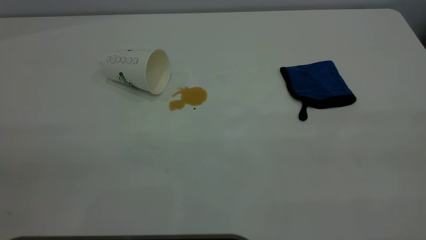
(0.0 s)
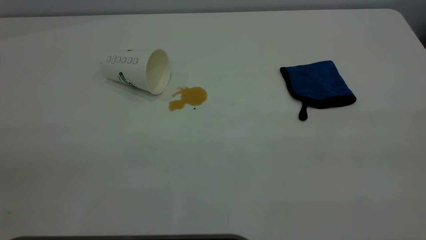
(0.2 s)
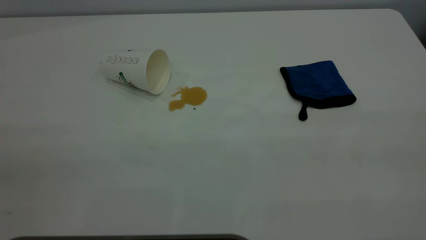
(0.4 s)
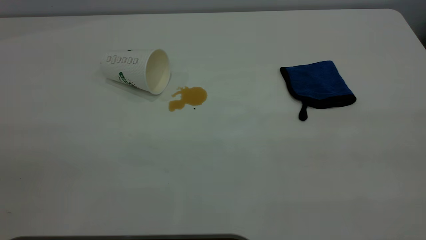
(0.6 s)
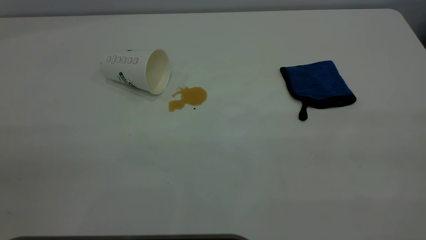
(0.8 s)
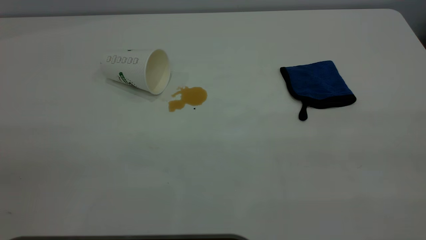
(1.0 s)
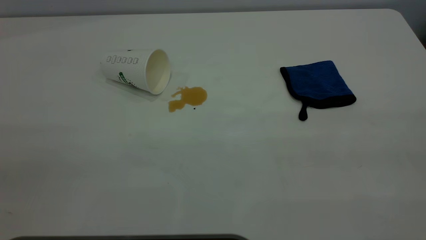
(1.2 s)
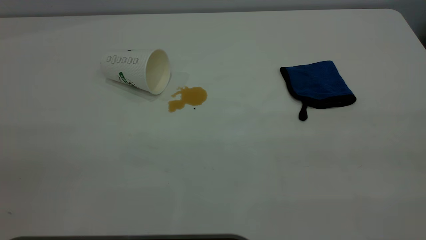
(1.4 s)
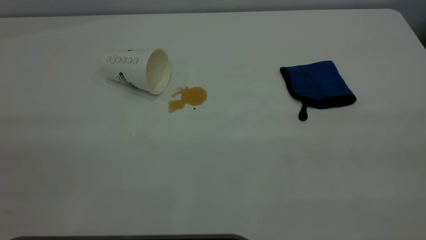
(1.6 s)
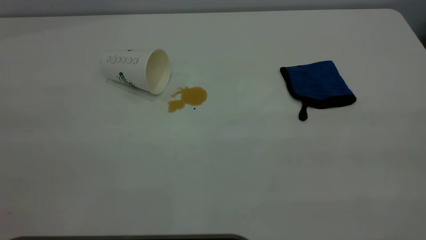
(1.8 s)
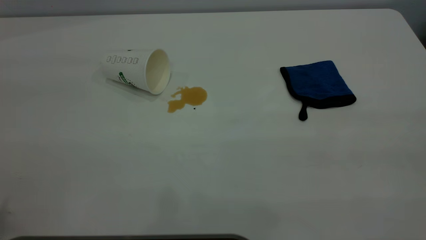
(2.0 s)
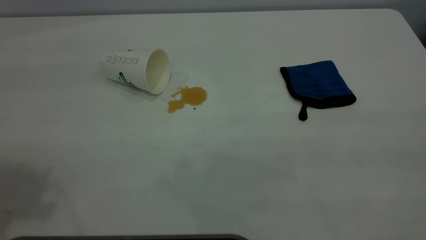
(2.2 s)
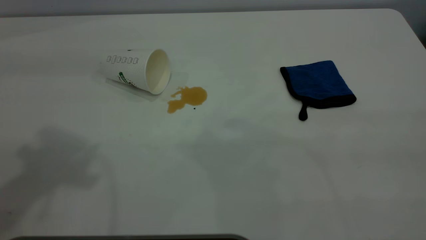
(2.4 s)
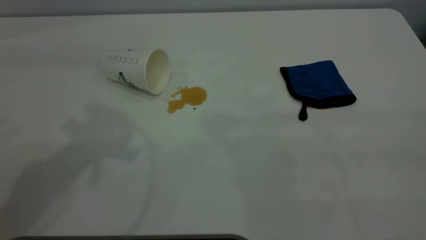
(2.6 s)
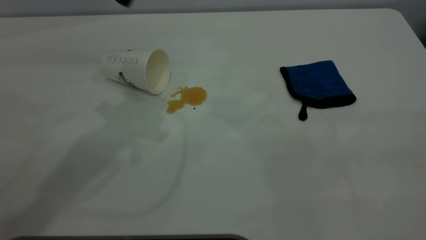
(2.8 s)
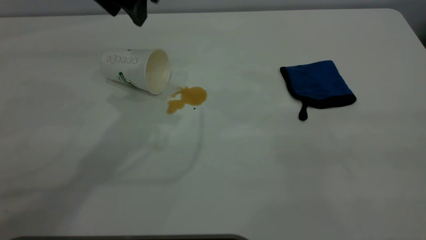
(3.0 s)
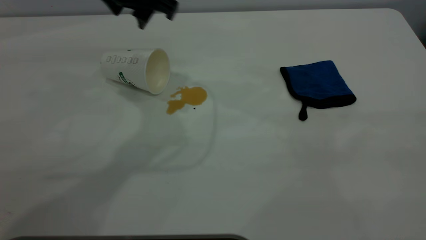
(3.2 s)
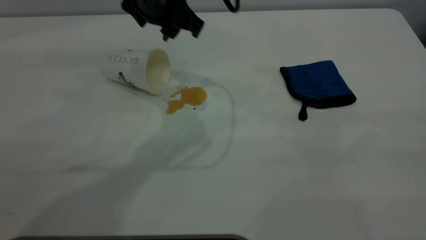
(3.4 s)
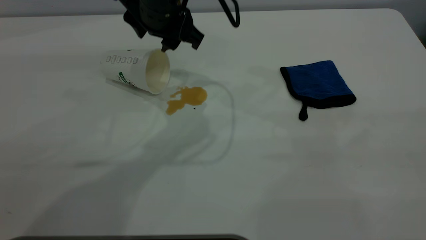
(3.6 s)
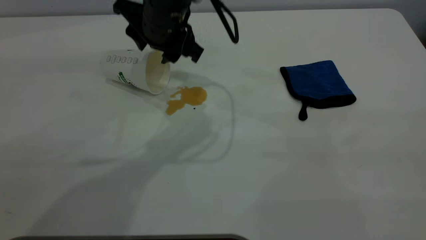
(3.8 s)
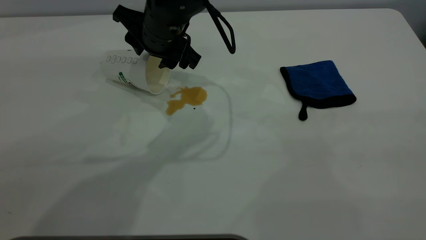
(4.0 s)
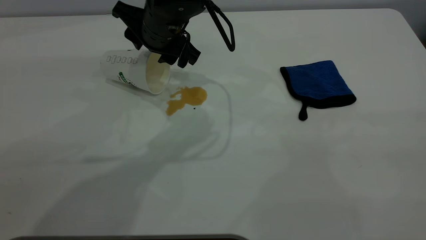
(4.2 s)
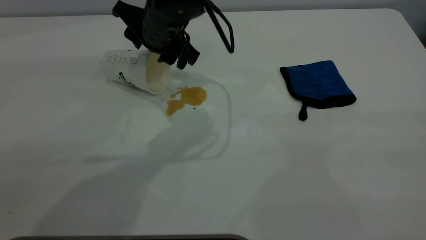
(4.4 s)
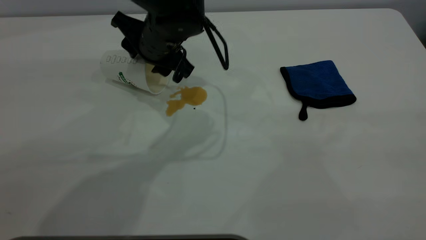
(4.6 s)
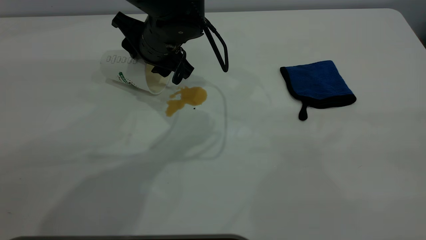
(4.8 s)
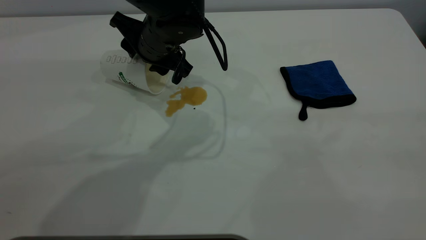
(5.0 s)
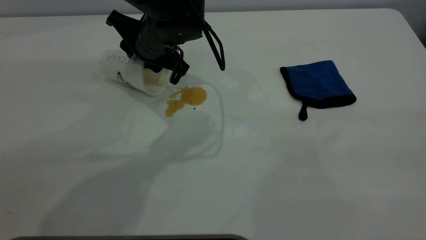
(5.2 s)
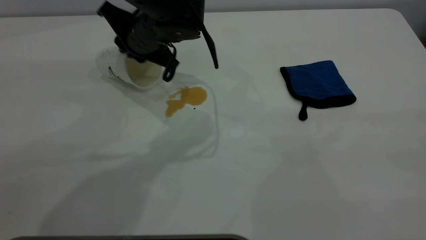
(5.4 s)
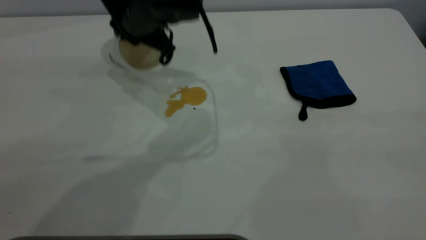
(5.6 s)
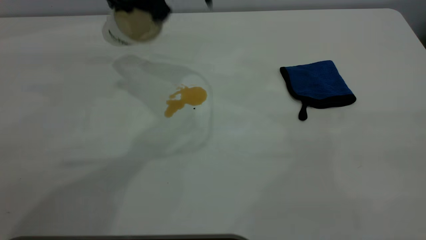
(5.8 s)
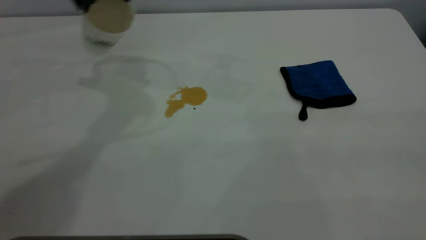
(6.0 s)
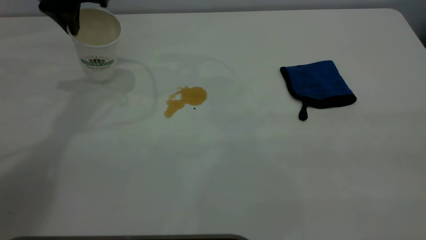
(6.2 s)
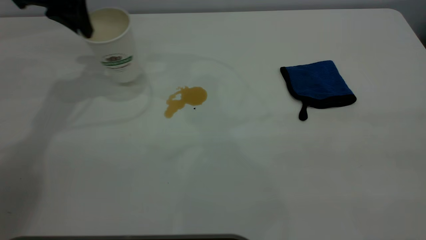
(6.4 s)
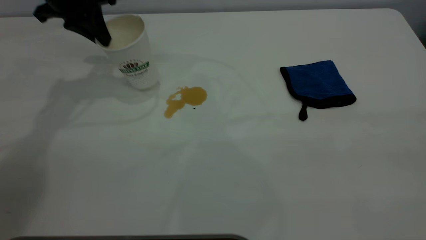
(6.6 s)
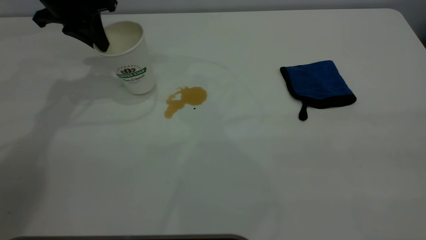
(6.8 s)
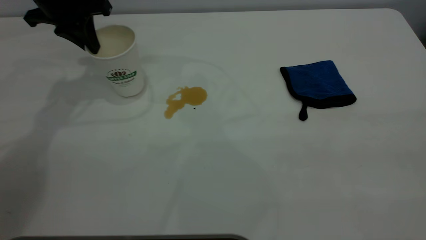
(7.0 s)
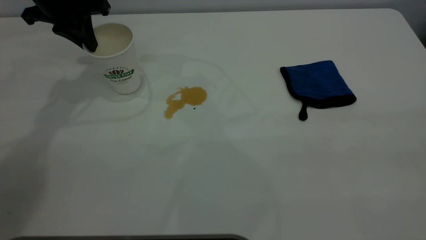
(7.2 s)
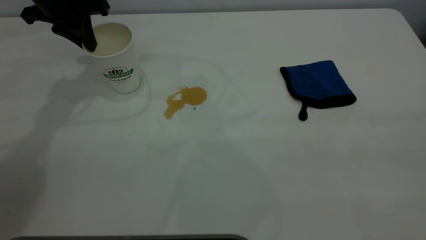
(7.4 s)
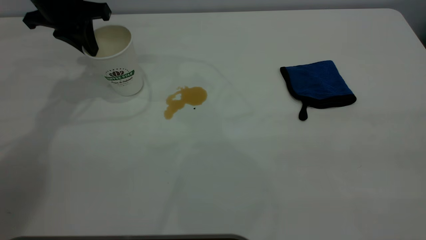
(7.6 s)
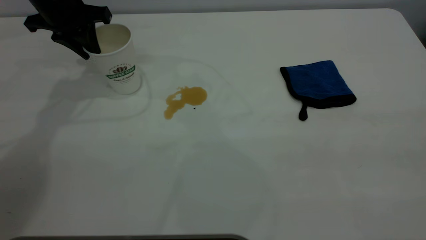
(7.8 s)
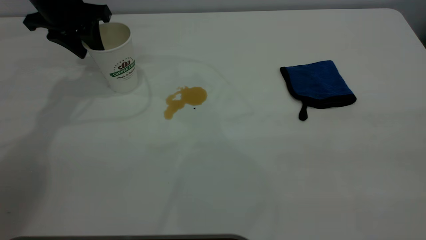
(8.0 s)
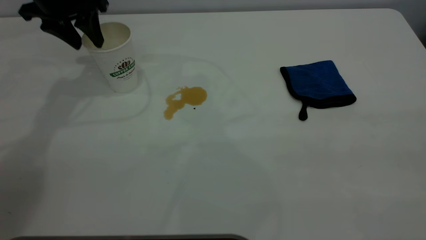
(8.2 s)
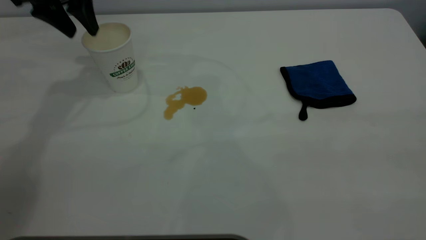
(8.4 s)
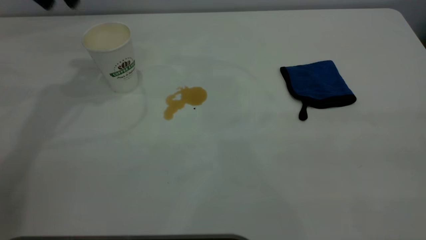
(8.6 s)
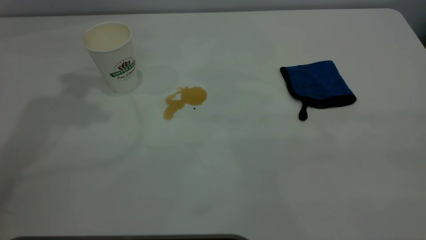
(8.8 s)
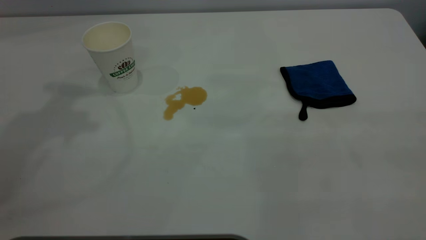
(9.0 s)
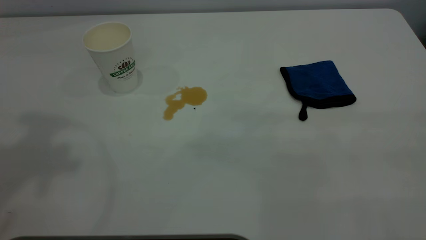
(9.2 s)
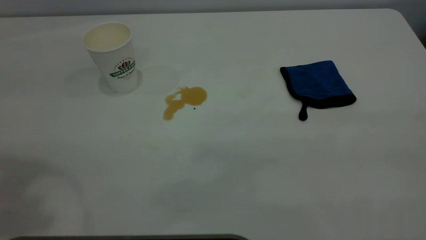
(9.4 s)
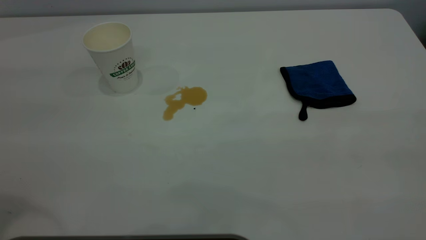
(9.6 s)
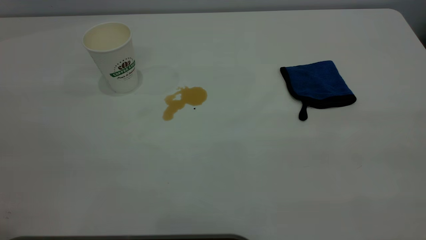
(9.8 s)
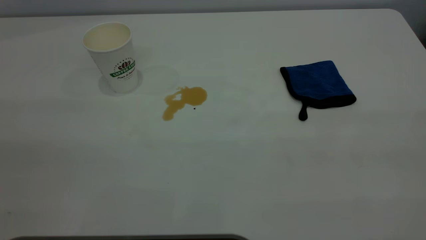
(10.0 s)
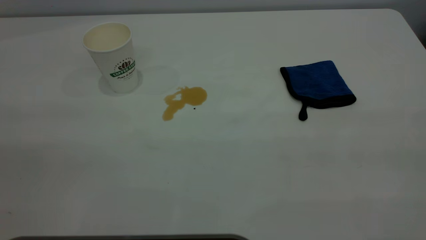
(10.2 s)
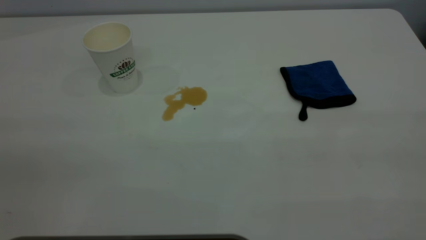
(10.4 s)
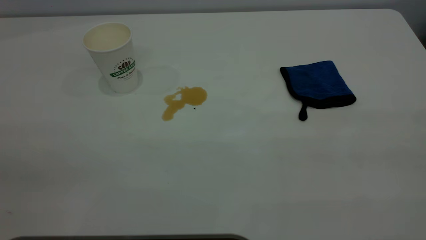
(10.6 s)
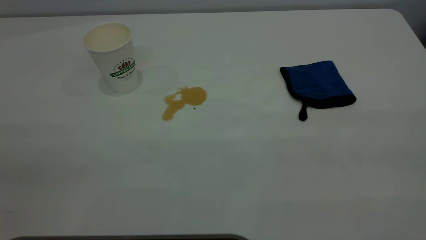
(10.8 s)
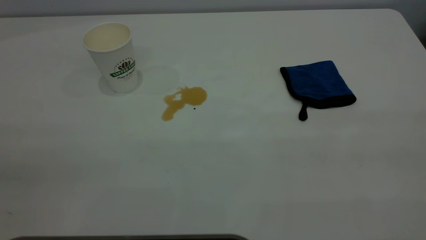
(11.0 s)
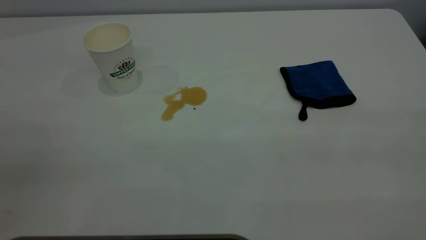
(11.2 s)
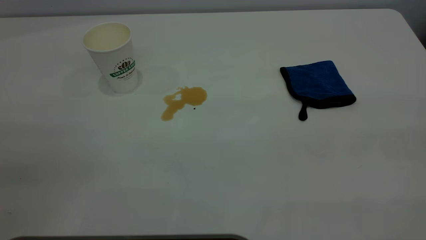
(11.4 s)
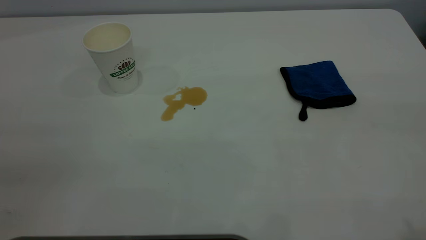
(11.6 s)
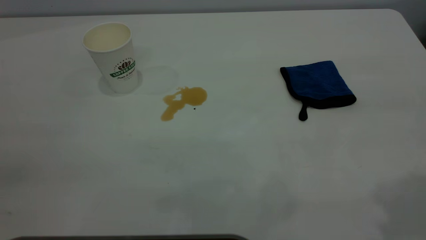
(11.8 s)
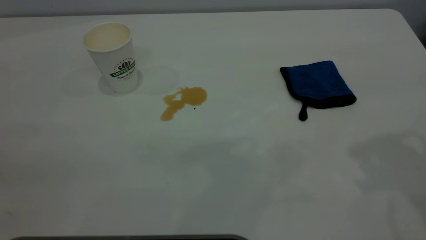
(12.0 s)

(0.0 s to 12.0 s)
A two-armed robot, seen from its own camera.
Task of the whole recording: the left gripper pick up the fallen cup and place it upright, the right gripper grasp the blue rag and wipe the tea stain on the table, the right gripper put the blue rag back in its original position.
Step, 0.0 s - 8.4 s: Stand the paper cup upright.
1.6 s - 3.0 s: The left gripper moves forward and to the right, approximately 40 cm.
3.0 s - 4.4 s: The left gripper shifts some 15 cm downward and to the right.
4.4 s - 6.0 s: The left gripper travels to the left and upward by approximately 15 cm, and closes.
6.0 s - 7.6 s: The left gripper goes approximately 5 cm to the left.
7.6 s - 9.0 s: The left gripper shifts roughly 30 cm upward and backward, and opens its fingers.

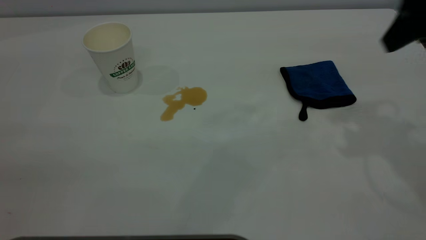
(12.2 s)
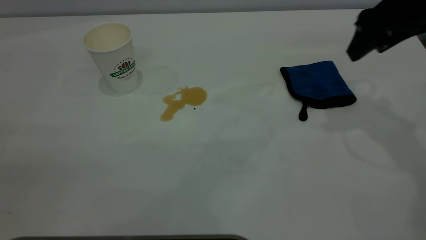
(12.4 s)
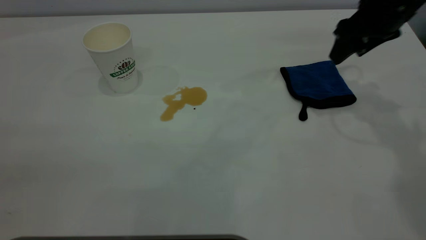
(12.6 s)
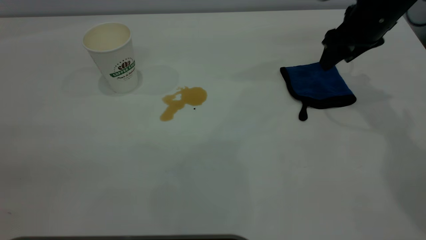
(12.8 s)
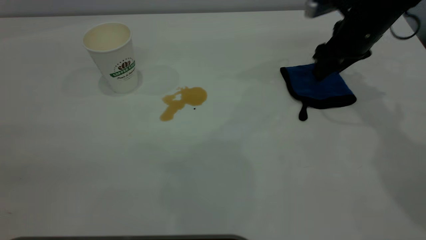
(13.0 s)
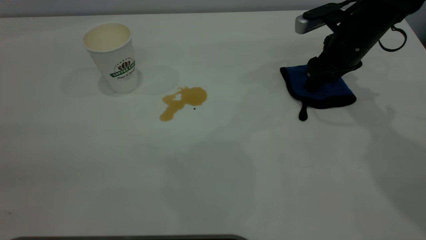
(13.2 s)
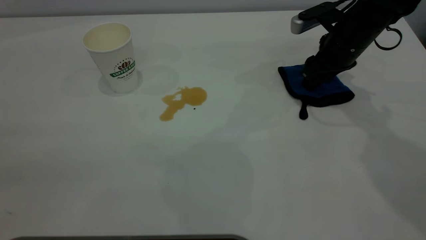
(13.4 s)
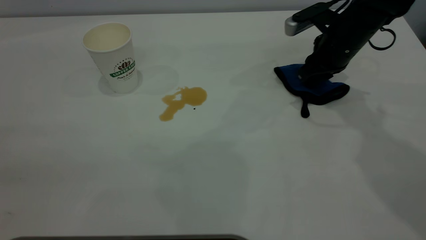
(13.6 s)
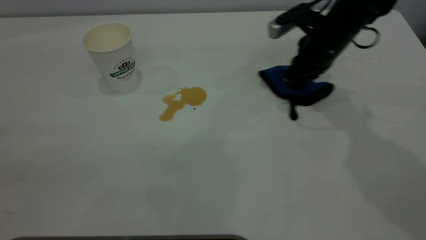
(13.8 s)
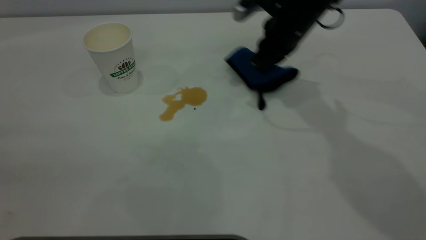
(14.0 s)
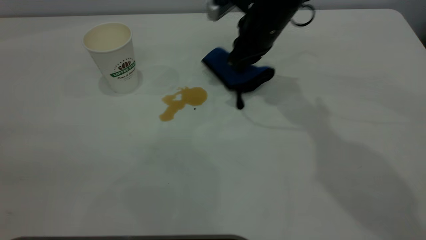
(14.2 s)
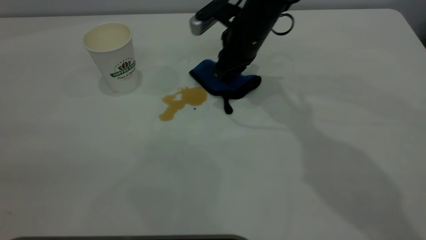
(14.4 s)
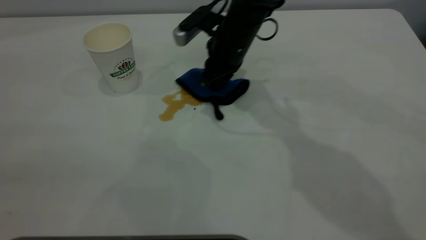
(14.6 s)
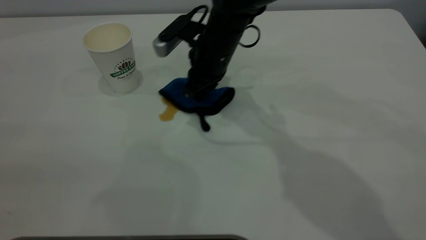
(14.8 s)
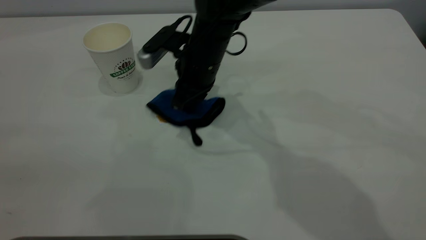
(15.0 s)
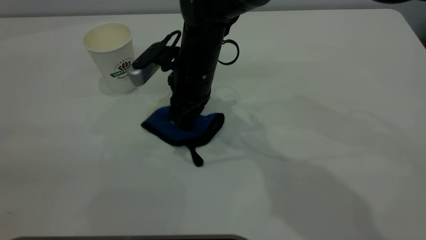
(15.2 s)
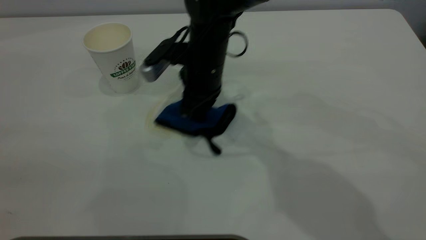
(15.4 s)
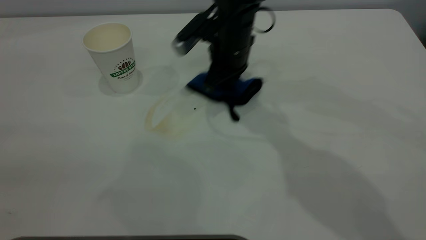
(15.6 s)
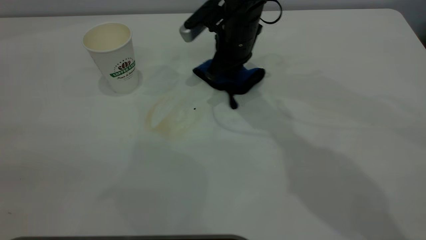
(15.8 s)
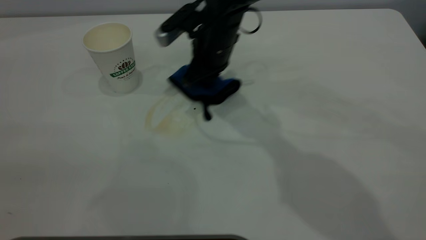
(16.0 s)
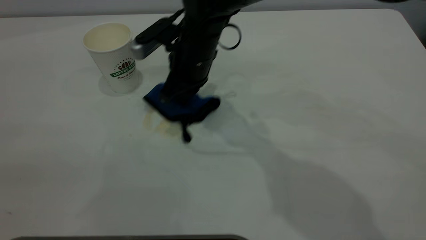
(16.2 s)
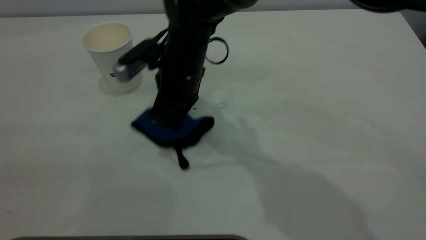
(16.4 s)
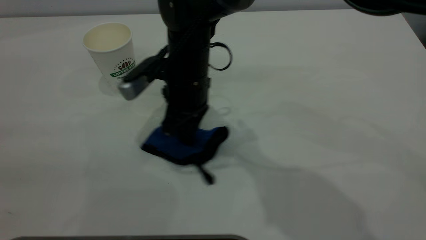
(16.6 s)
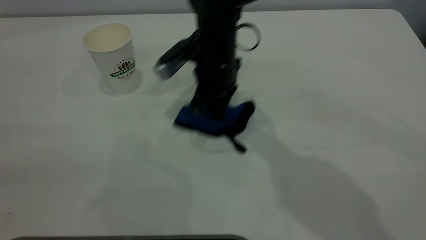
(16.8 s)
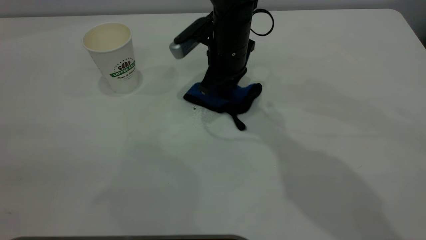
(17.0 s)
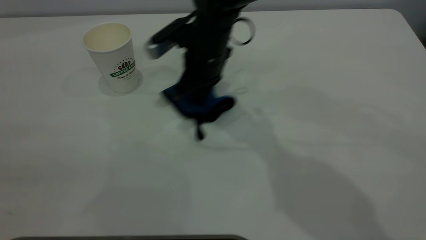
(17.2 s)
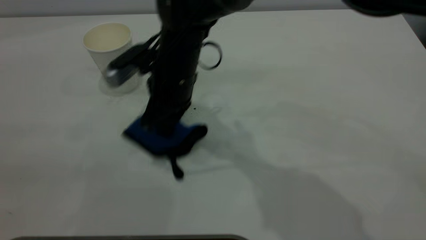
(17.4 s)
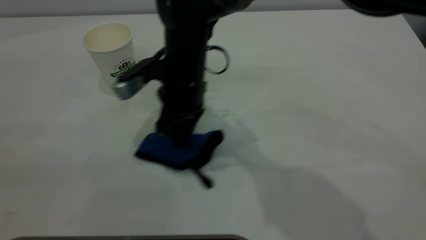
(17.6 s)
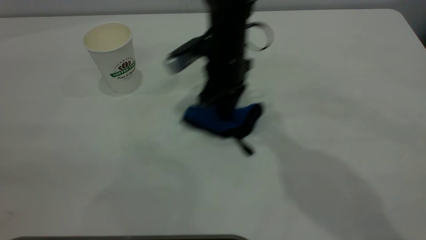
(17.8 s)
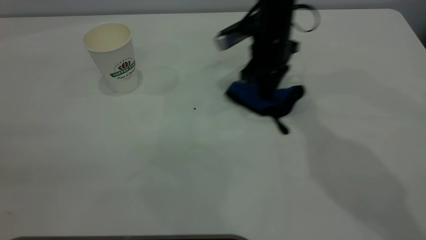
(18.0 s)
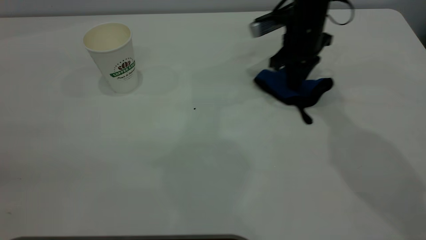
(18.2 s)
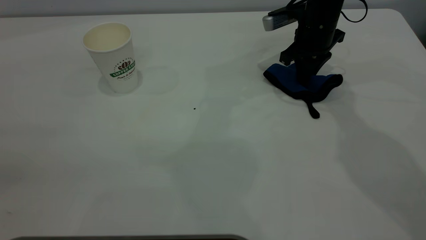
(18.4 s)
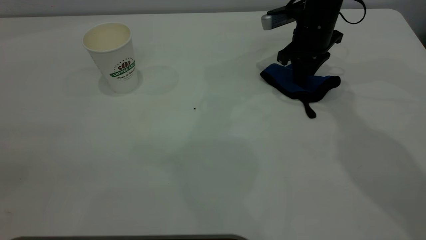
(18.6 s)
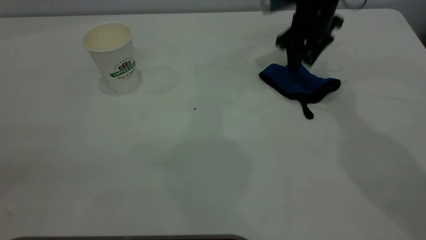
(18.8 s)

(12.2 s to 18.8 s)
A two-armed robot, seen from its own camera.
Task of the whole recording: the left gripper pick up the fallen cup and place it upright, the right gripper grasp the blue rag and wipe the tea stain on the table, the right gripper put the blue rag back in its original position.
12.2 s - 13.8 s: The right gripper shifts some 20 cm downward, forward and to the left, and closes.
13.8 s - 15.4 s: The right gripper is displaced to the left by some 15 cm.
15.4 s - 17.2 s: The right gripper goes forward and backward, about 10 cm each way, reversing 2 times.
17.2 s - 18.8 s: The right gripper moves to the right and forward, some 25 cm, and opens.
